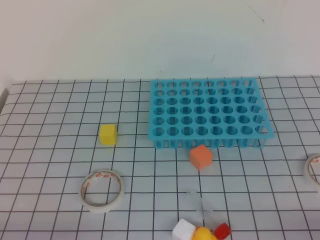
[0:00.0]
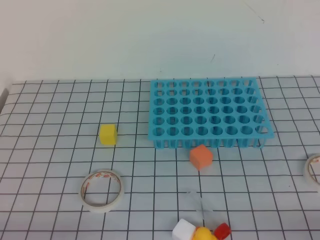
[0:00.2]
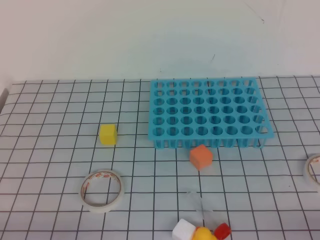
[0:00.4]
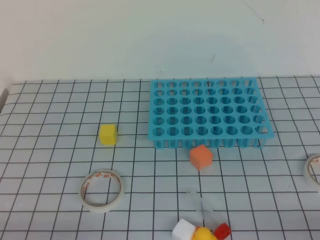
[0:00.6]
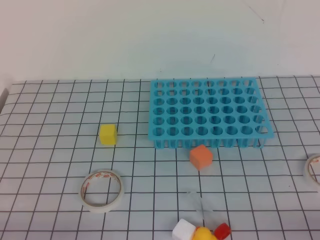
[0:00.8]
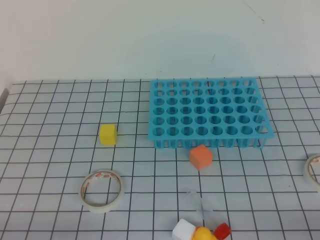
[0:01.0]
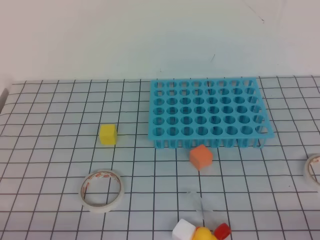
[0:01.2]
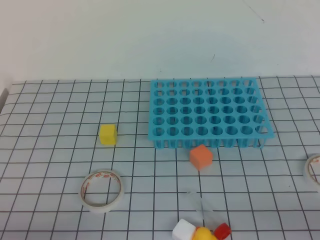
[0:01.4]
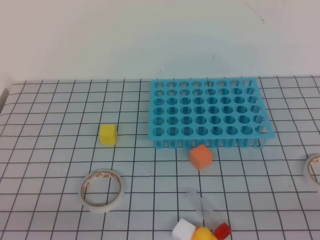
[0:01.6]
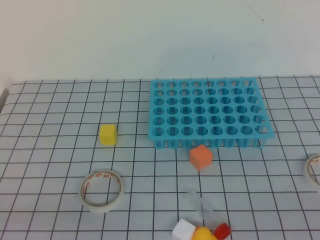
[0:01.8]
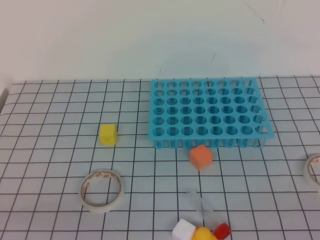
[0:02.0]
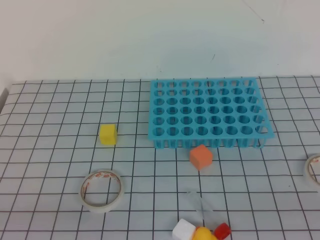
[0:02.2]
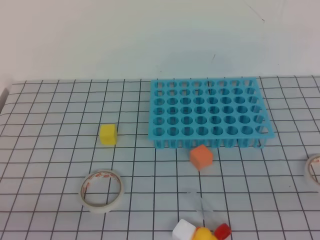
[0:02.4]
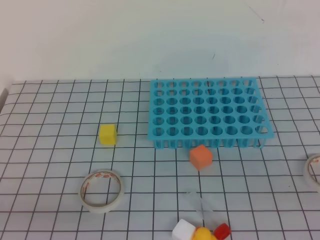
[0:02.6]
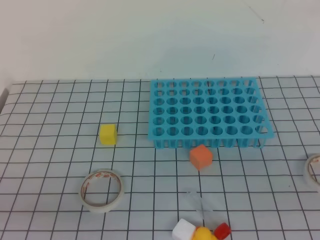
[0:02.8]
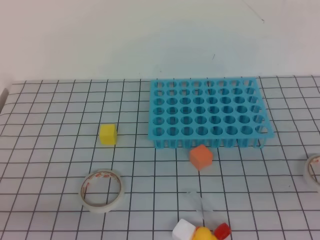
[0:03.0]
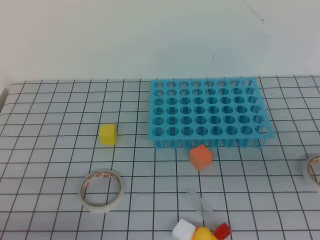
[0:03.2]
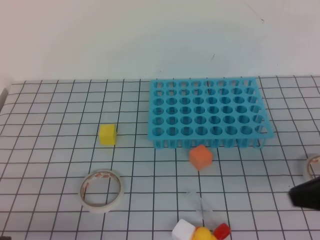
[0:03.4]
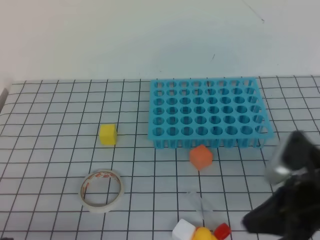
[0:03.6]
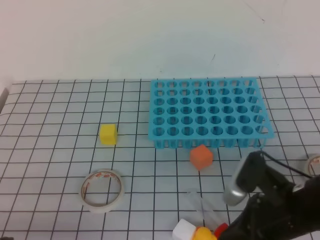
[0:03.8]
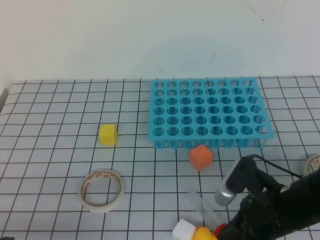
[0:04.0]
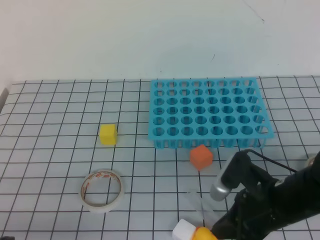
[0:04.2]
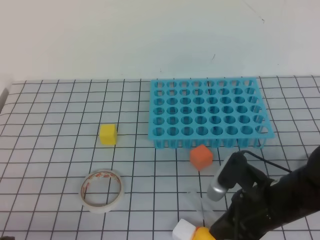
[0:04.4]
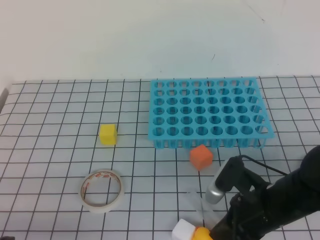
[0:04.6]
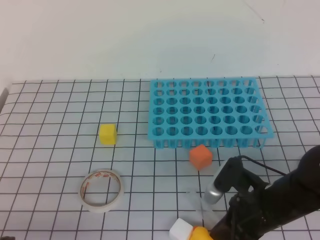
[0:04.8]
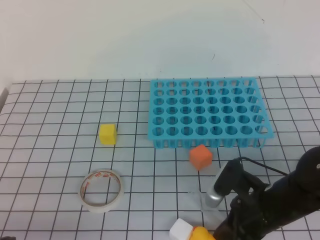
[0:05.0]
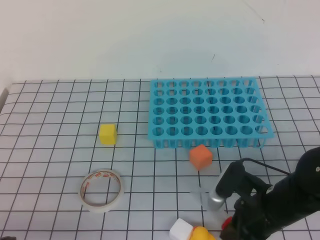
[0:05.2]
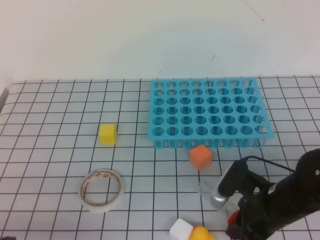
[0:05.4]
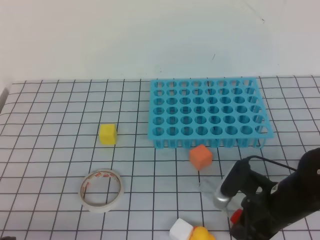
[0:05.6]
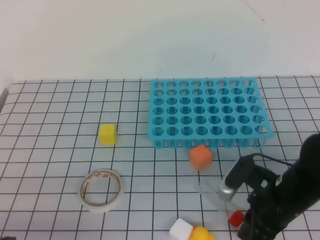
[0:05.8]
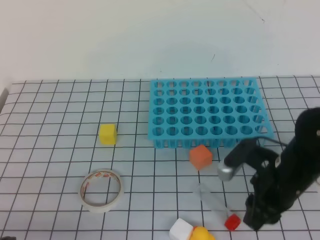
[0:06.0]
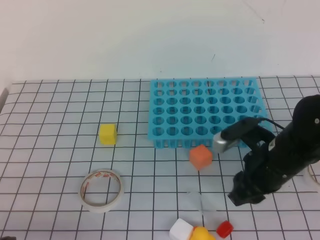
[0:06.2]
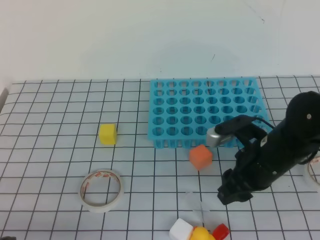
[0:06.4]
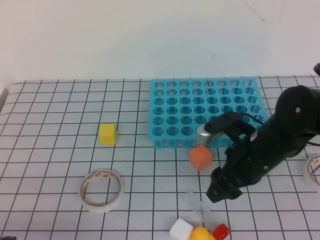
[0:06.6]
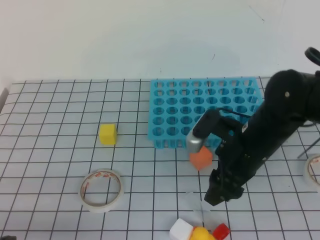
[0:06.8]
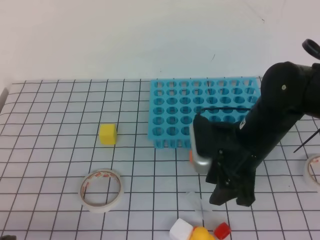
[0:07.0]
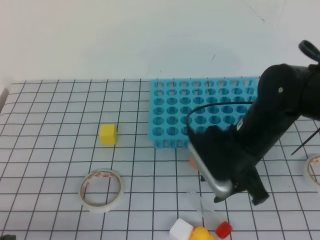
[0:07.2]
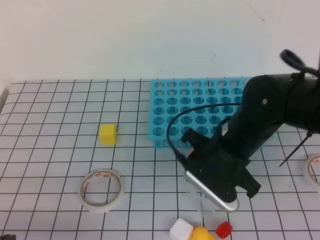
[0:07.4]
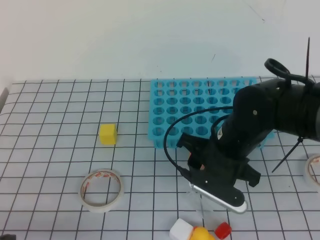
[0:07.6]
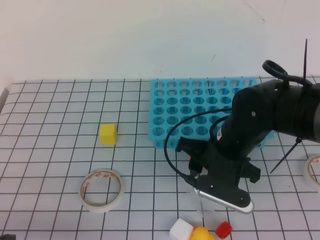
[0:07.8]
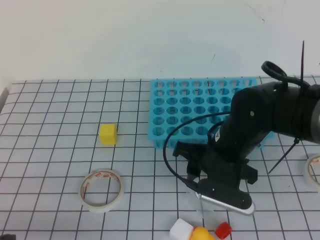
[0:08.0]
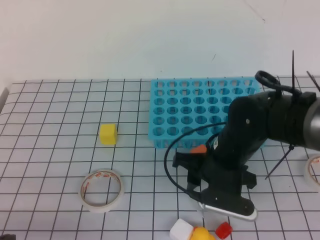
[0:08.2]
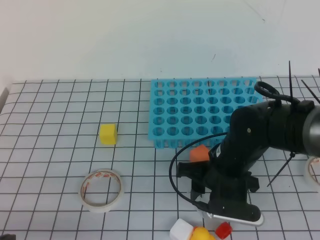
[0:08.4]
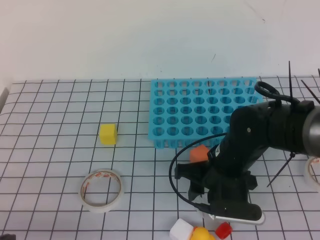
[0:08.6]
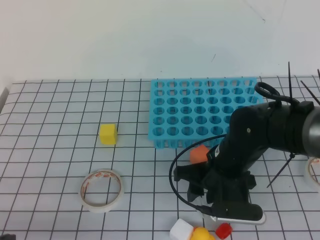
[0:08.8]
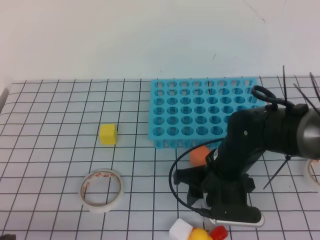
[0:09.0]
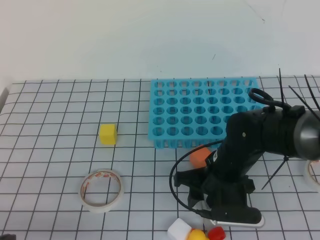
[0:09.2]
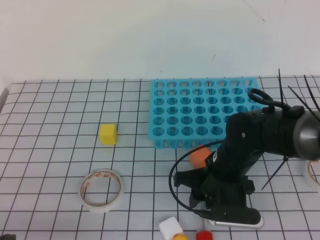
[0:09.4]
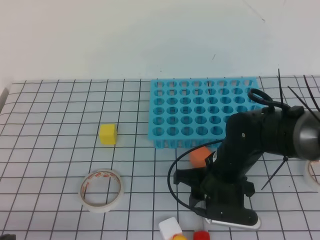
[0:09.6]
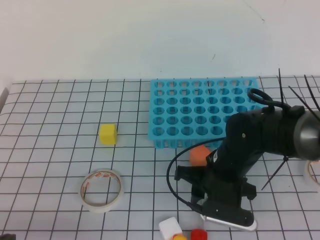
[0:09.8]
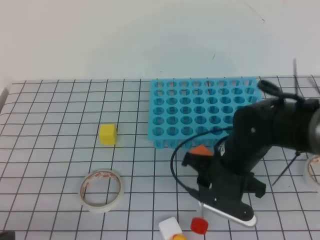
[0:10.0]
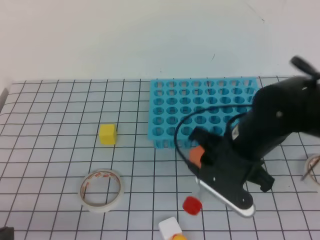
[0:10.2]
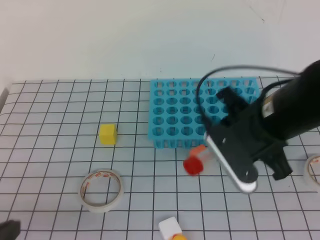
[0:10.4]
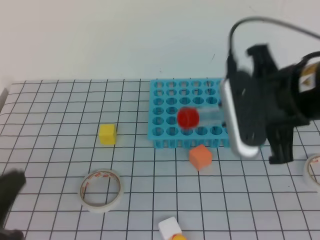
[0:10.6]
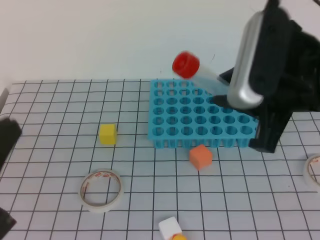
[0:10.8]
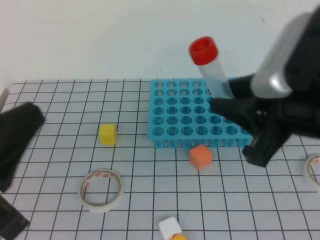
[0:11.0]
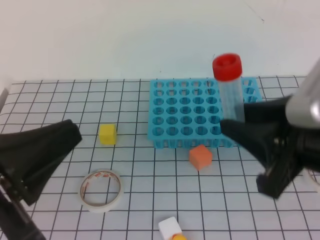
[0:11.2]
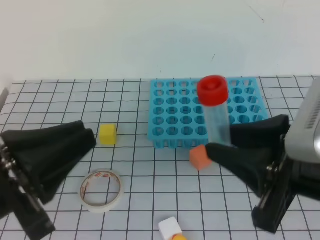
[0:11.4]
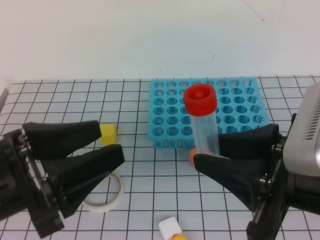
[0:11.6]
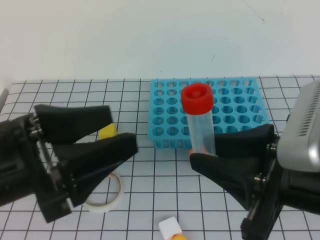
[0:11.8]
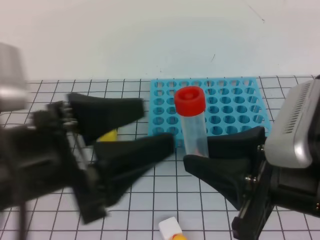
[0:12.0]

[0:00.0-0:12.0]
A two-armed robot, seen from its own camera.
0:03.0 to 0:04.4: The right gripper moves downward, to the left and forward, roughly 25 cm.
0:04.4 to 0:06.0: The right gripper opens.
0:06.0 to 0:07.6: The right gripper shifts some 5 cm to the left, and opens its fingers.
0:09.0 to 0:10.4: The right gripper shifts roughly 15 cm upward.
0:10.4 to 0:12.0: The left gripper goes about 15 cm upward, to the right and forward, and opens up. The right gripper moves backward, approximately 15 cm.

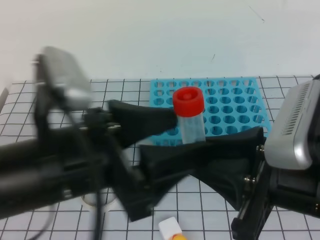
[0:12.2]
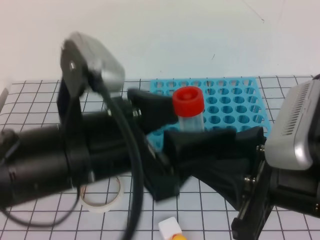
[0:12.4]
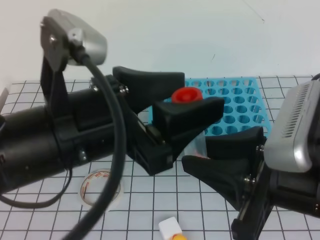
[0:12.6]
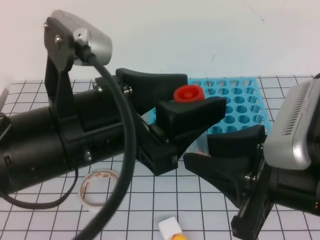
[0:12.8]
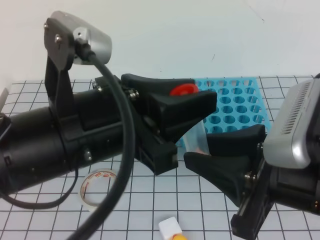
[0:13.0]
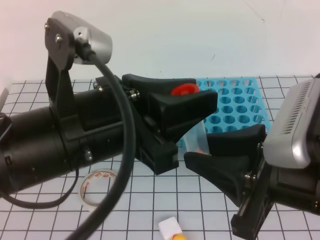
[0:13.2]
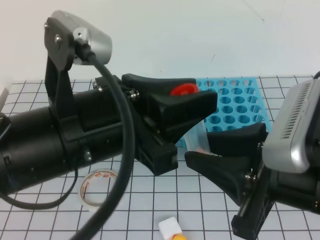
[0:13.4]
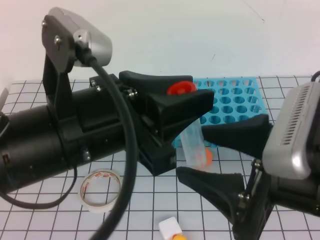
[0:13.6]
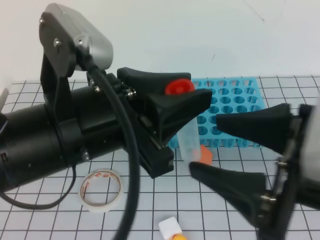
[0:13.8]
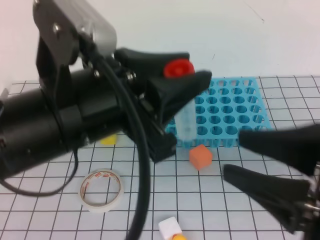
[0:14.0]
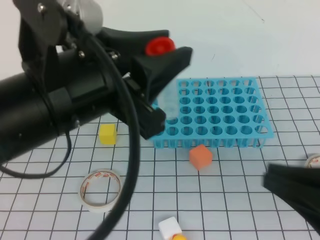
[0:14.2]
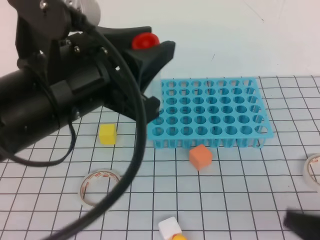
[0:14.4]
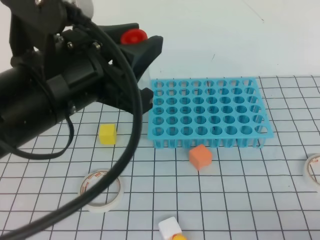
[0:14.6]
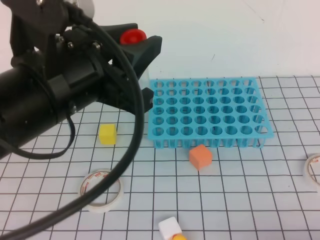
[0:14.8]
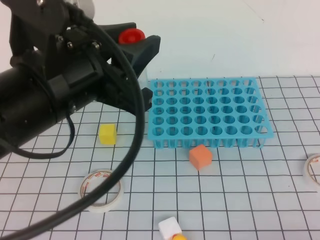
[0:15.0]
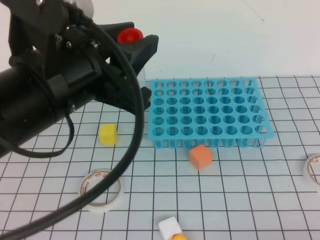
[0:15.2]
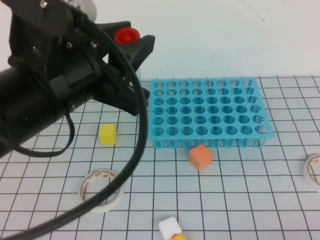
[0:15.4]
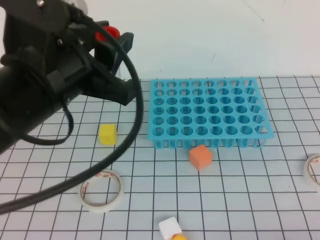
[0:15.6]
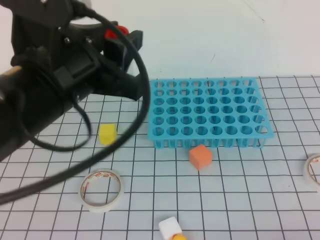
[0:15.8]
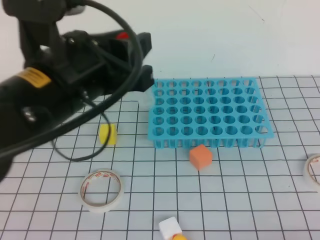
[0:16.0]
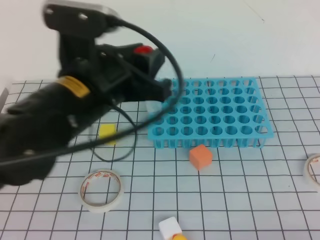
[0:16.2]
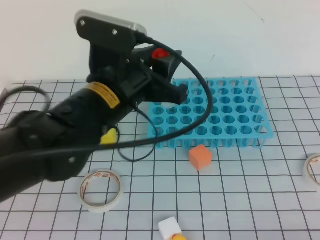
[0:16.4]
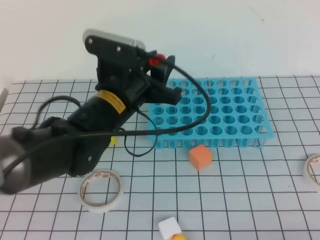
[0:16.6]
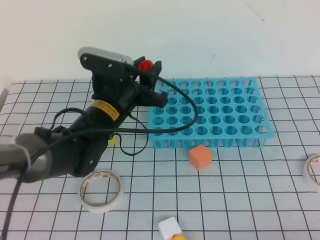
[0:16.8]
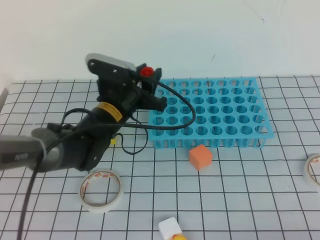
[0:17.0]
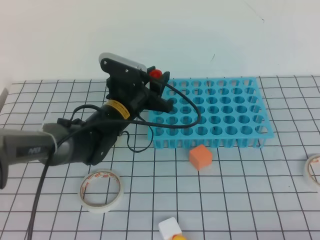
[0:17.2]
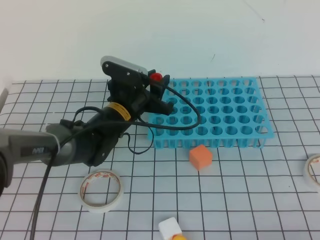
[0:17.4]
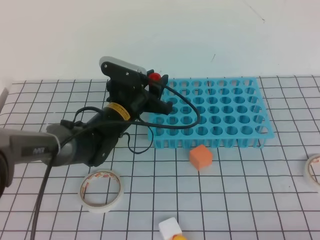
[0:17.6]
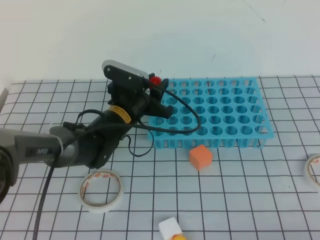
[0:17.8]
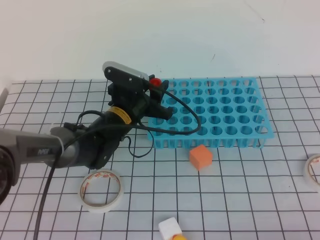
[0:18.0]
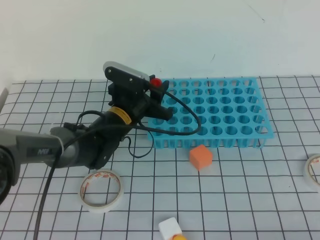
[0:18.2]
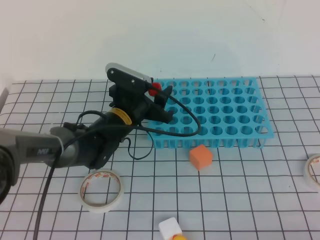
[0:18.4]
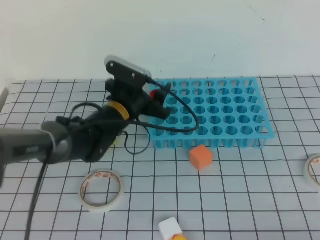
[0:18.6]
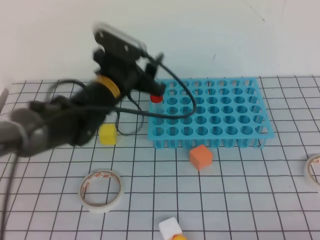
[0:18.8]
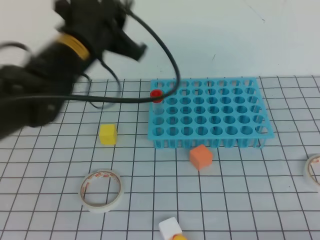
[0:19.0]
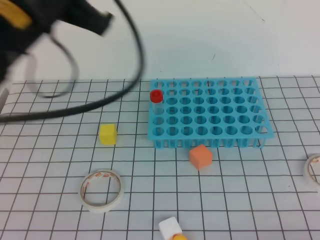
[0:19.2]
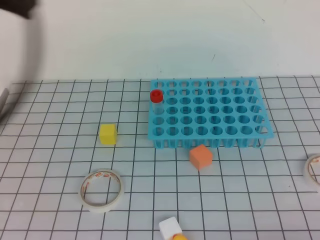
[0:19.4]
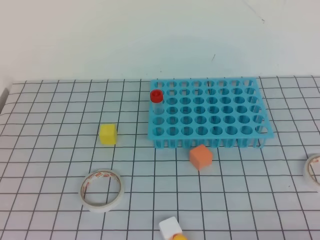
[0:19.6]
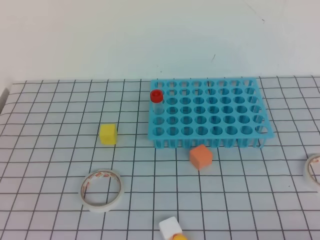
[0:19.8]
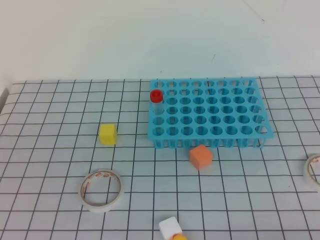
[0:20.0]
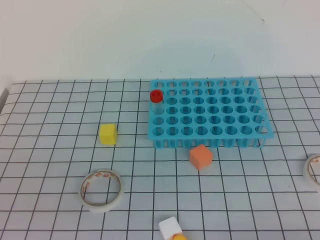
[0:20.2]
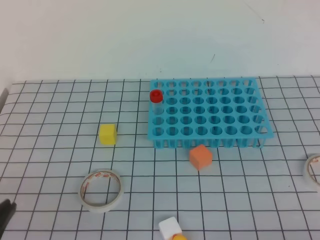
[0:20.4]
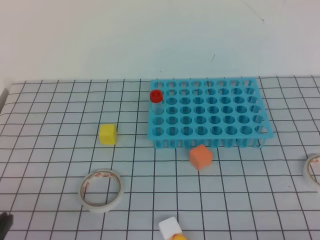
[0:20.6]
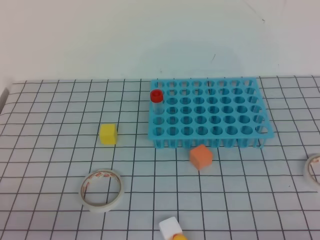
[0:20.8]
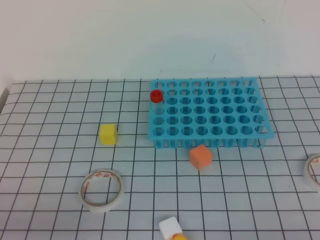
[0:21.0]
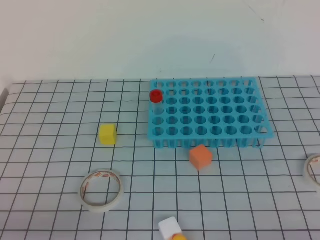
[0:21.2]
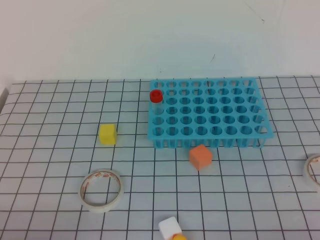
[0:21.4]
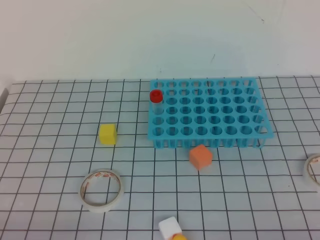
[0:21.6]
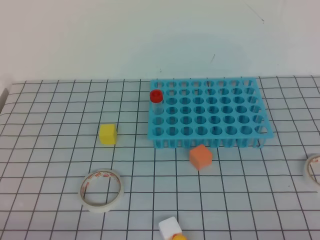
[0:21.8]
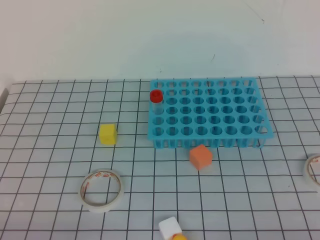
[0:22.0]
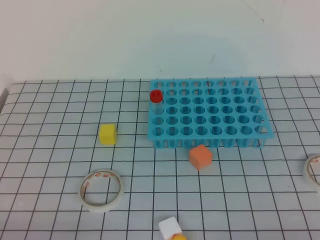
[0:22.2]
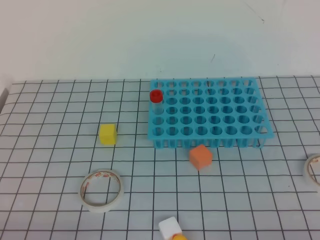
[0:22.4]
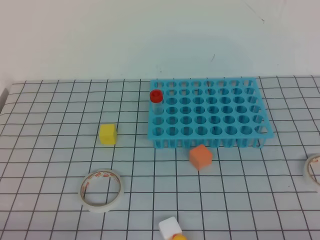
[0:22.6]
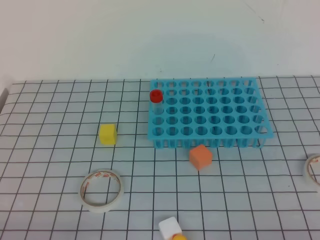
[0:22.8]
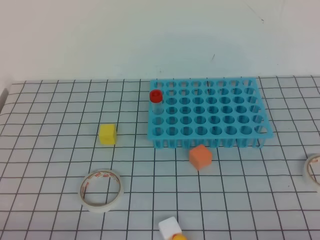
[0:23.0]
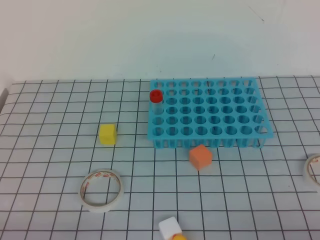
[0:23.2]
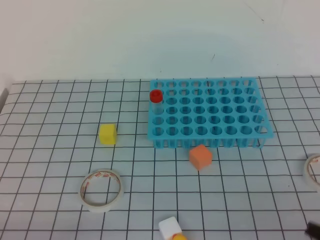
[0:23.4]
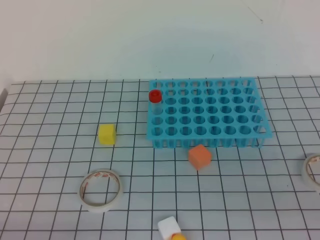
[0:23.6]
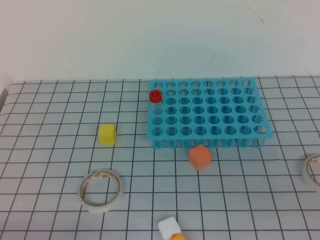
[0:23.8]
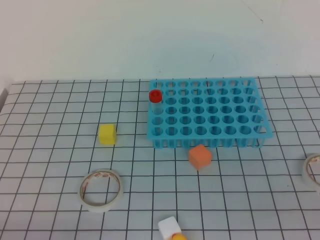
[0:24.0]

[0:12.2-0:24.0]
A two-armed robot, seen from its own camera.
0:12.2 to 0:13.6: The left gripper closes its fingers; the right gripper opens.
0:13.6 to 0:15.2: The right gripper shifts roughly 20 cm downward, to the right and backward, and closes its fingers.
0:15.2 to 0:16.6: The left gripper is displaced forward and downward by approximately 15 cm.
0:16.6 to 0:18.2: The left gripper is displaced downward and forward by about 15 cm.
0:18.2 to 0:19.6: The left gripper shifts some 50 cm upward, backward and to the left, and closes up.
0:19.6 to 0:21.0: The left gripper heads downward, covering about 25 cm.
0:22.6 to 0:24.0: The right gripper goes approximately 15 cm upward.
